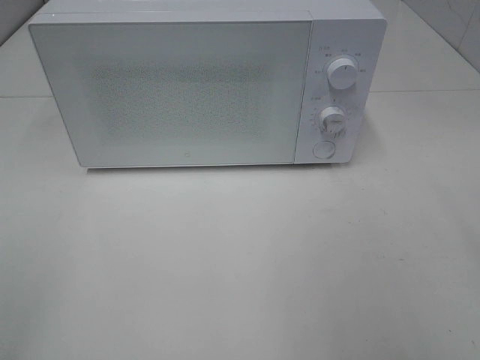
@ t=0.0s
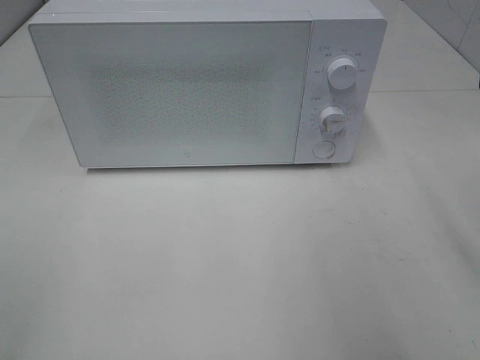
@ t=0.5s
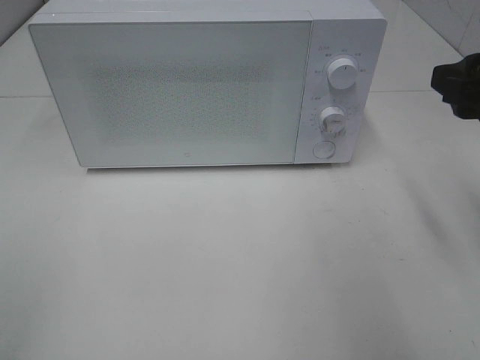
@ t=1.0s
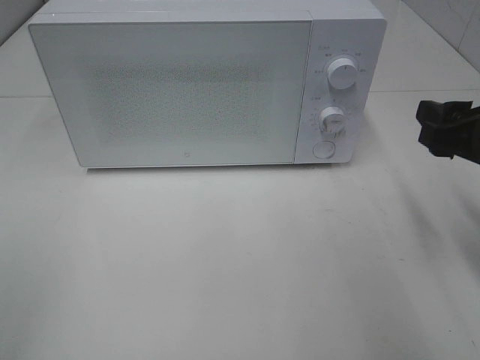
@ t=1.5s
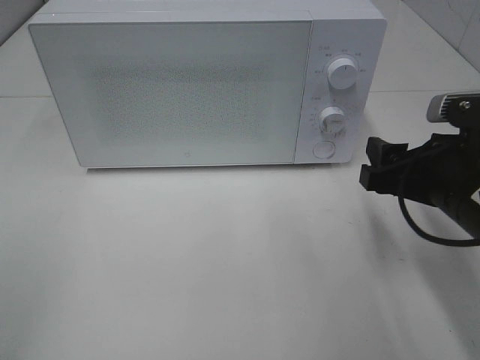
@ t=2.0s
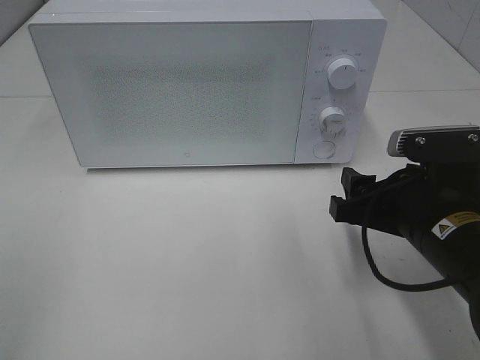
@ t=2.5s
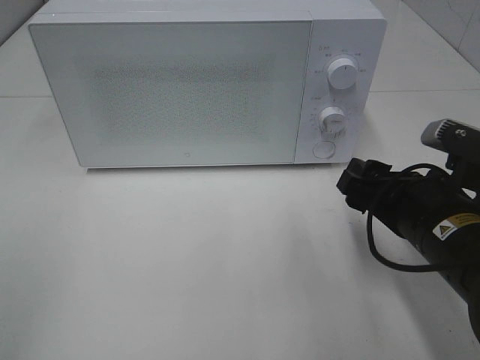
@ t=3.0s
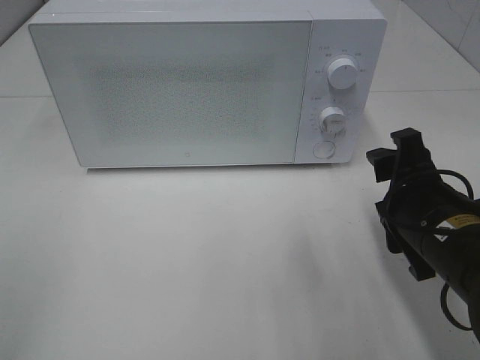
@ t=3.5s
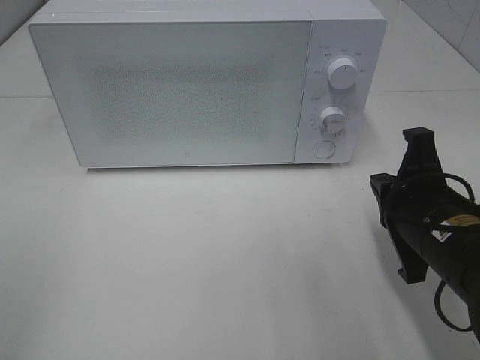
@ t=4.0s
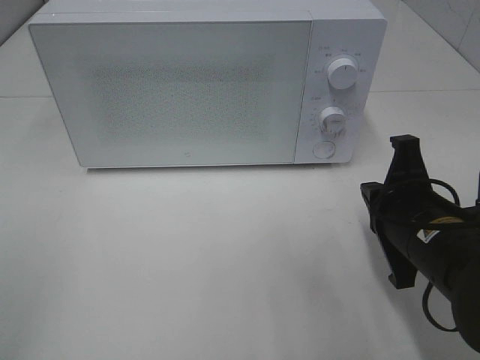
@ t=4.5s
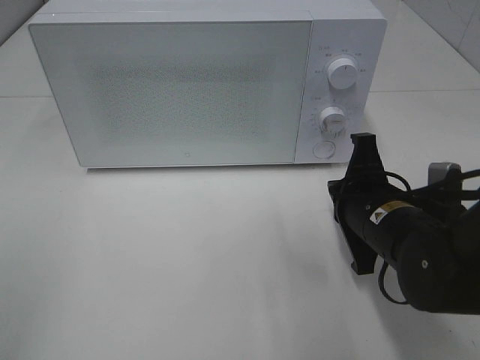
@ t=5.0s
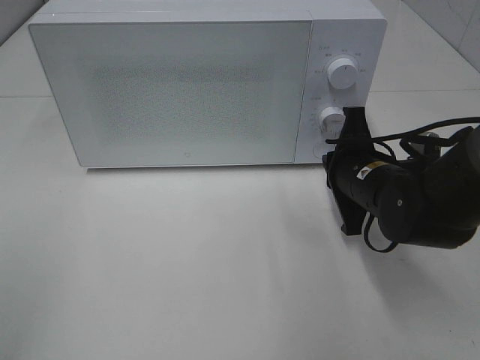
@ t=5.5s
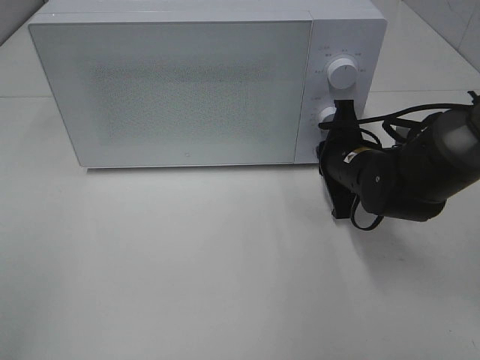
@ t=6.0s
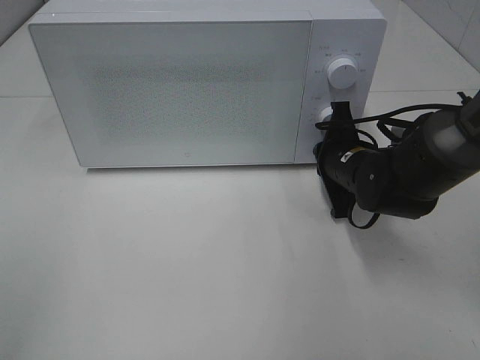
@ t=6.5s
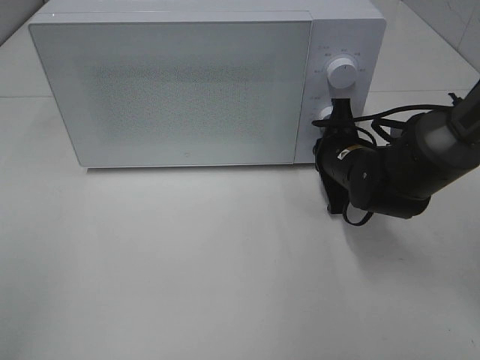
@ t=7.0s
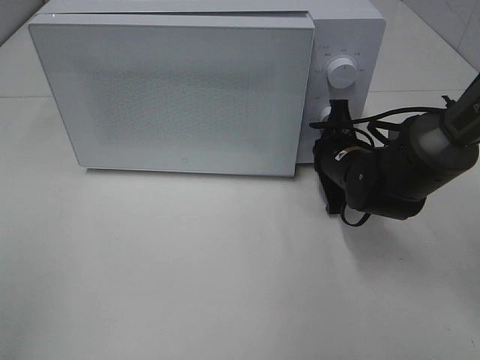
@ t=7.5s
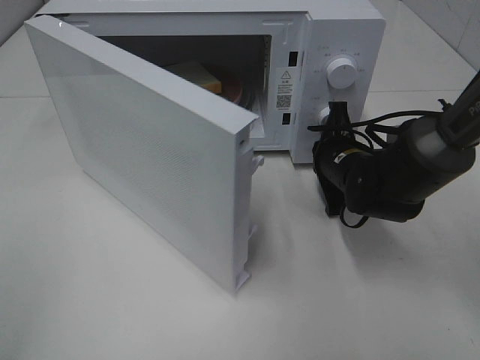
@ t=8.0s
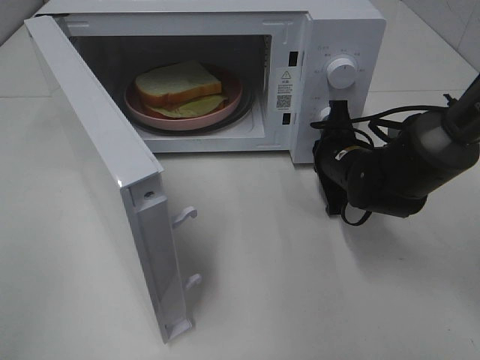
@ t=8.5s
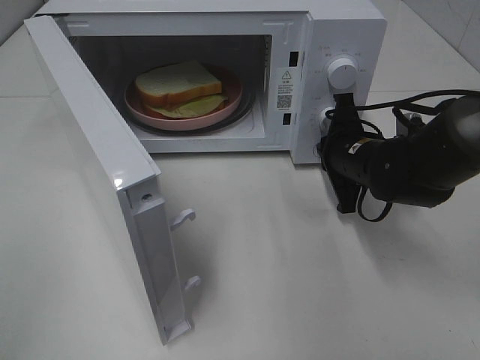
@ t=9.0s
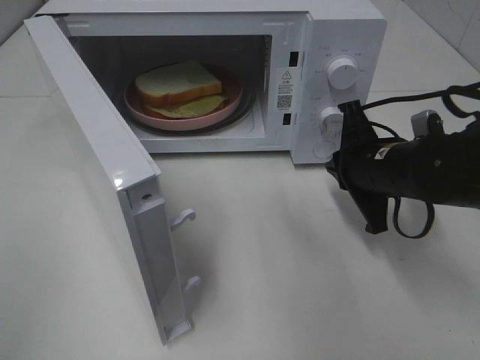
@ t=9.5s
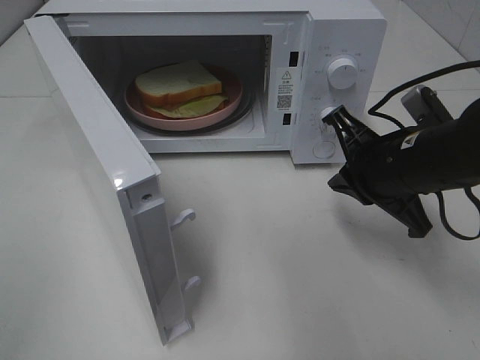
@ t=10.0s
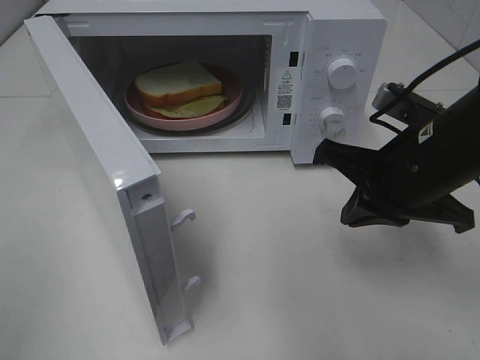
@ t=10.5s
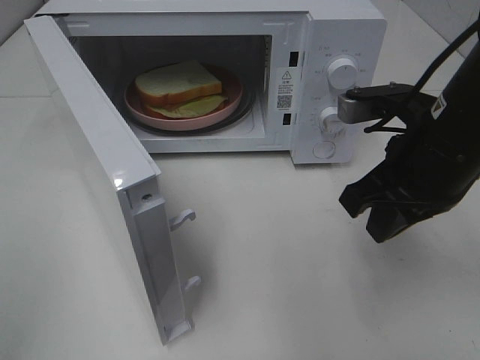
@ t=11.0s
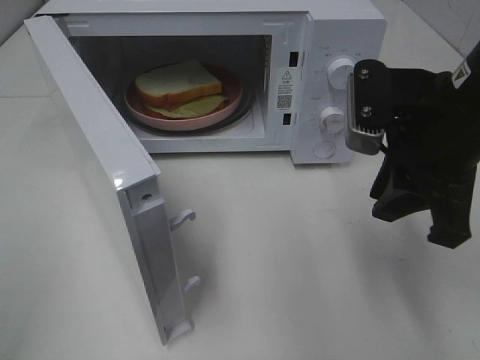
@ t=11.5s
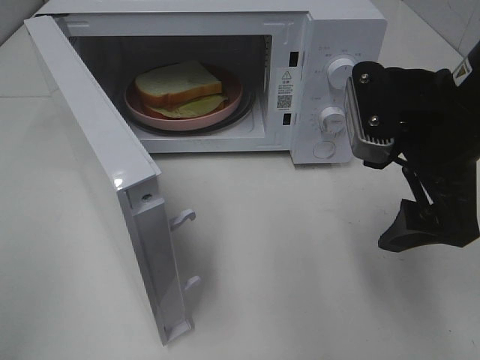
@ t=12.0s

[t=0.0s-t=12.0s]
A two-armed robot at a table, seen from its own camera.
Task of the whole recording: Heat Sandwich.
Step, t=0.0s to t=9.0s: Right hand: press the switch.
t=0.0s to t=2.0s: The right gripper goes about 20 cm downward, forward and to the left.
t=2.0s to t=4.0s: The right gripper closes.
t=4.0s to t=6.0s: The right gripper is displaced forward by roughly 15 cm.
t=8.0s to t=10.0s: The right gripper heads backward and upward, covering roughly 15 cm.
t=10.0s to t=12.0s: The right gripper travels upward by approximately 10 cm, and opens its fingers.

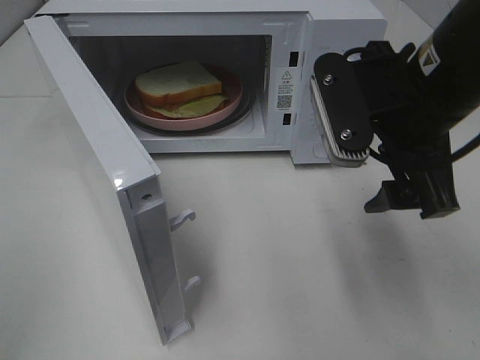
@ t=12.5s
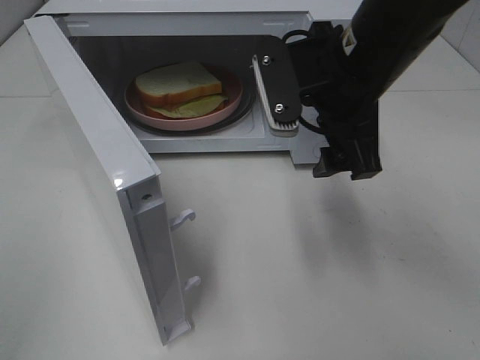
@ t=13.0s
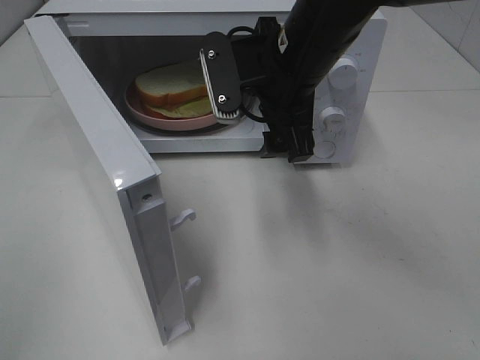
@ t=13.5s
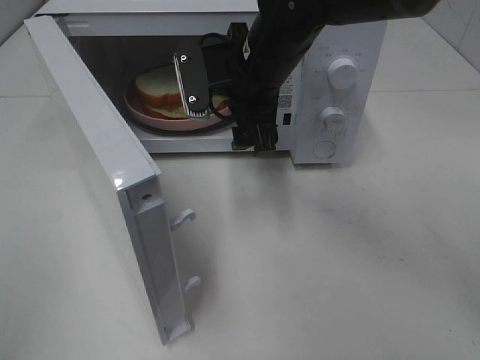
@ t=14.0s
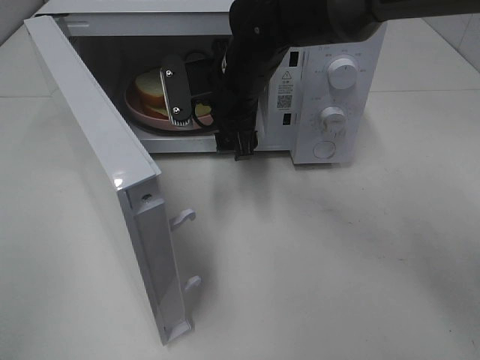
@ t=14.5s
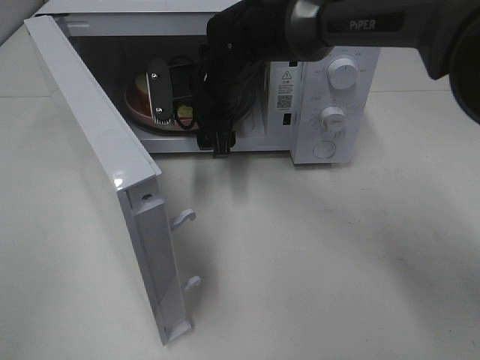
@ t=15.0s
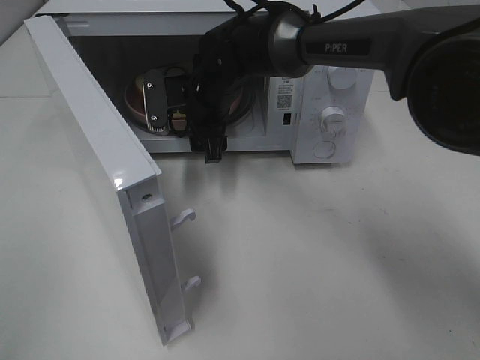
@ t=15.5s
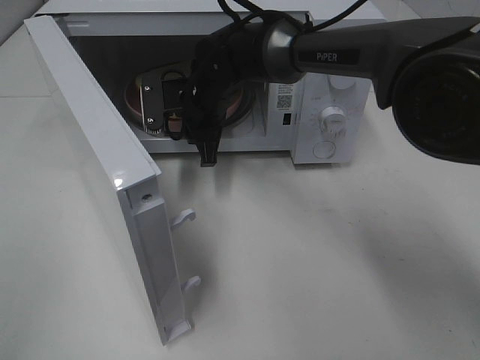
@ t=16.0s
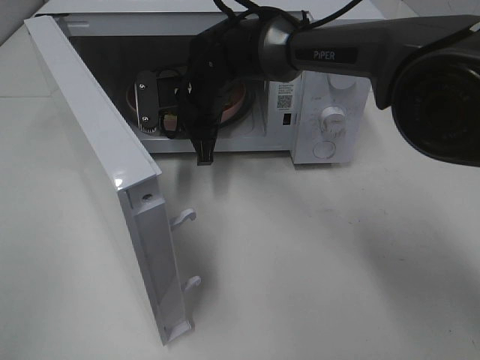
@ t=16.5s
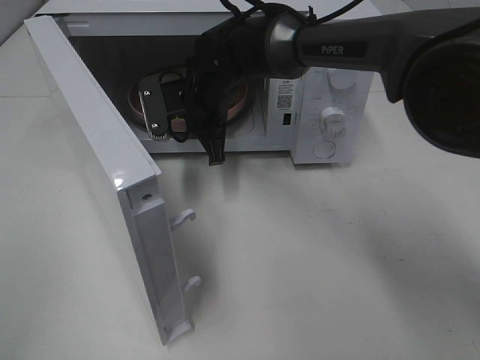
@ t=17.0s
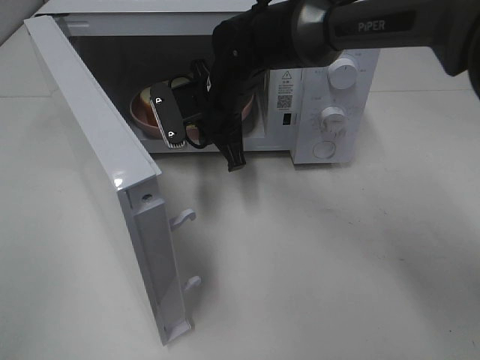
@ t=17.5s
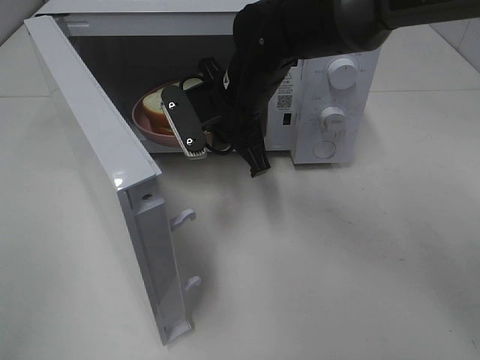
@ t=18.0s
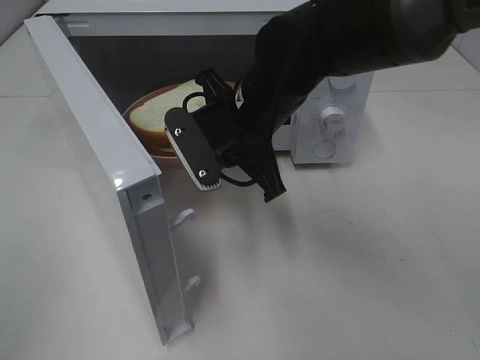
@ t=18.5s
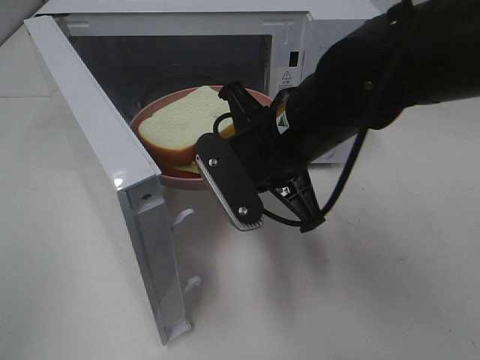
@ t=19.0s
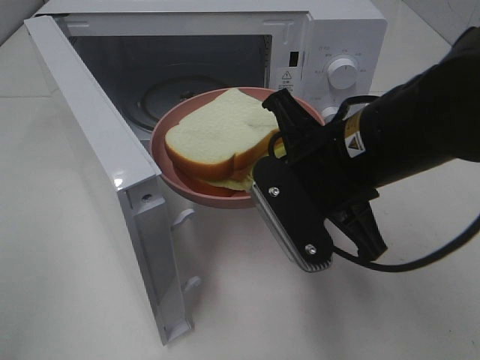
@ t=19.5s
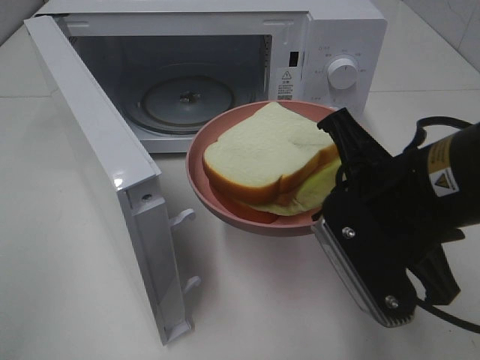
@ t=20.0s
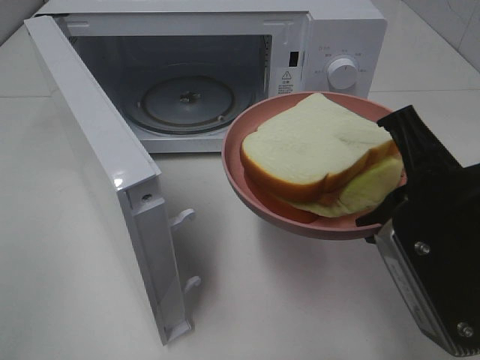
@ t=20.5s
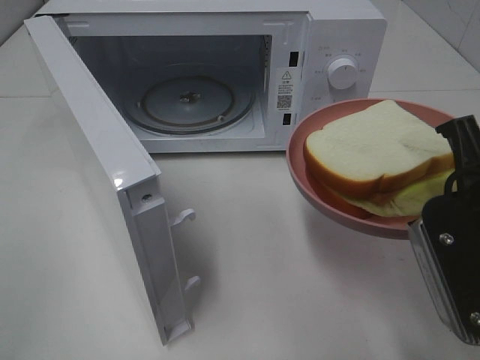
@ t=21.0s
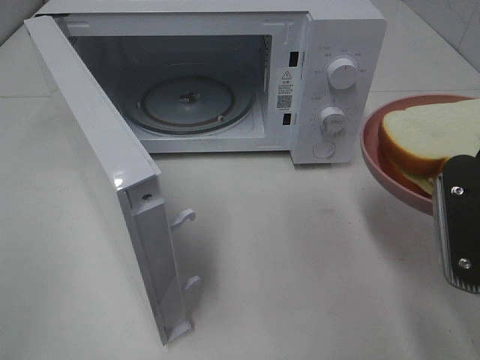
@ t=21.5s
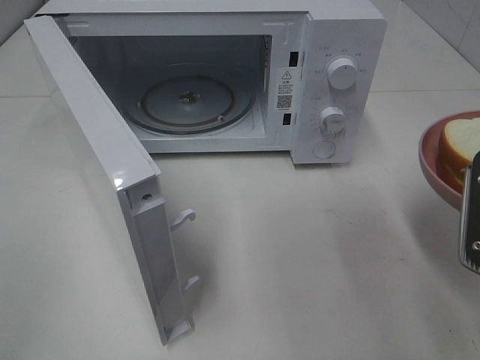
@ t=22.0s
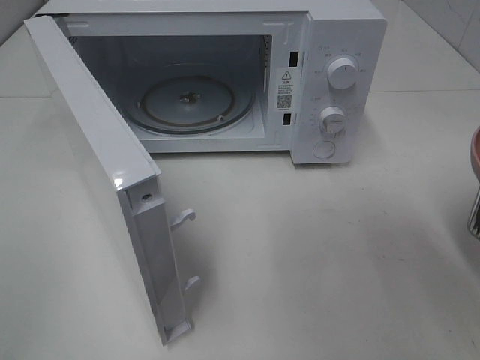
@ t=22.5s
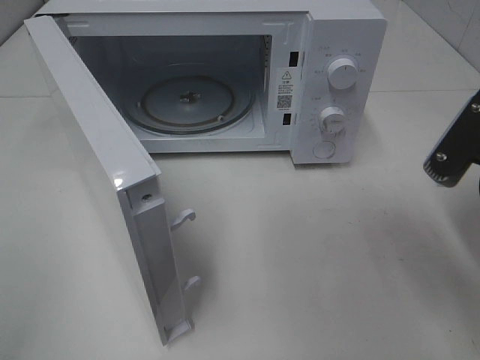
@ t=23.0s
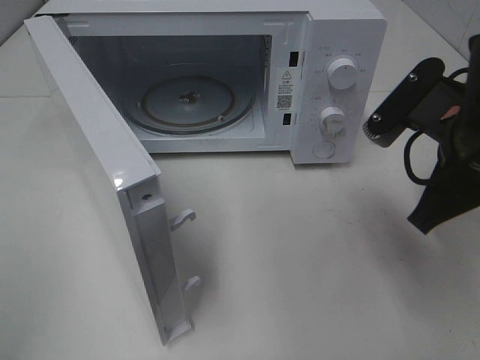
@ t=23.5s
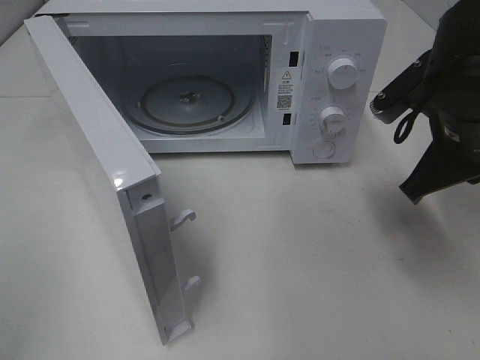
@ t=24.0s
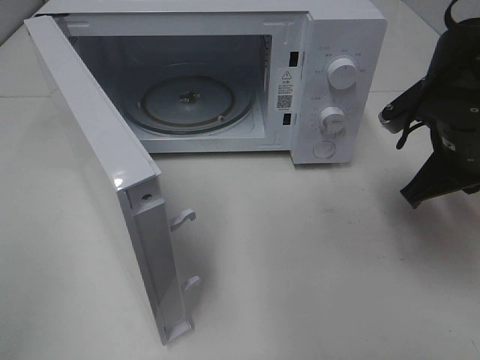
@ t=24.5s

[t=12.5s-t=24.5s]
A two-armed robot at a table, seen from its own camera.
Task of the whole recording: Heat Sandwich.
Step, t=12.5s to t=16.0s: Right hand: grab the plate with the sandwich.
t=12.5s to t=14.5s: The right gripper is displaced forward, to the left and downward by approximately 20 cm.
t=14.5s to t=16.5s: The right gripper moves about 10 cm, and closes.
t=16.5s to t=18.5s: The right gripper shifts approximately 15 cm backward, to the right and upward.
t=18.5s to t=20.5s: The right gripper heads backward and to the right, covering roughly 20 cm.
t=20.5s to t=22.5s: The right gripper is displaced to the right by roughly 5 cm.
t=22.5s to t=24.5s: The right gripper shifts about 15 cm forward.

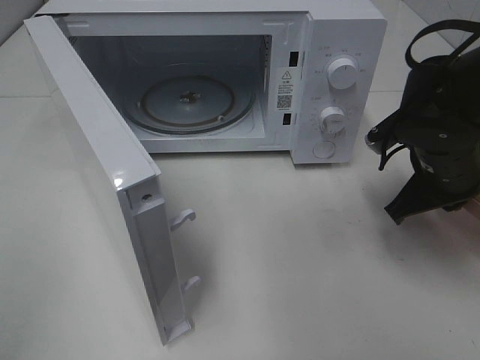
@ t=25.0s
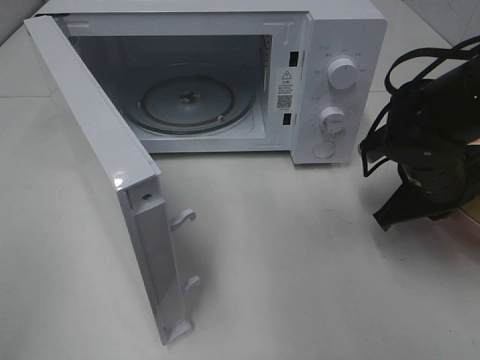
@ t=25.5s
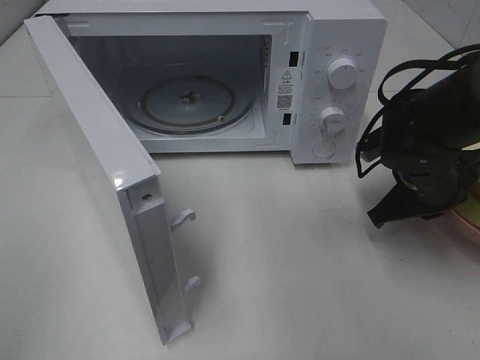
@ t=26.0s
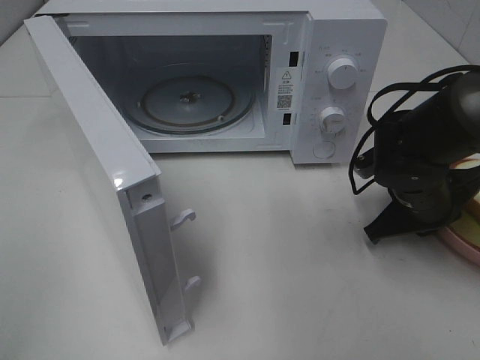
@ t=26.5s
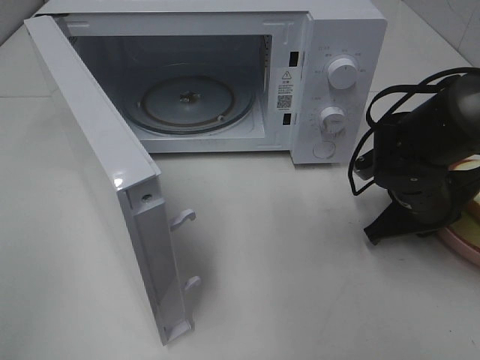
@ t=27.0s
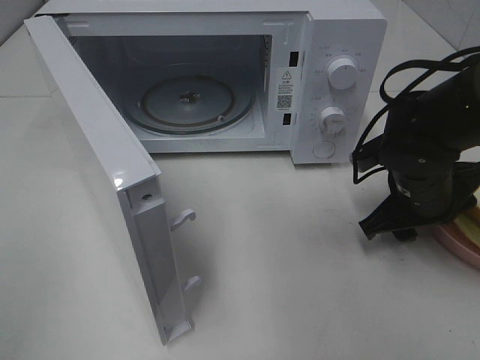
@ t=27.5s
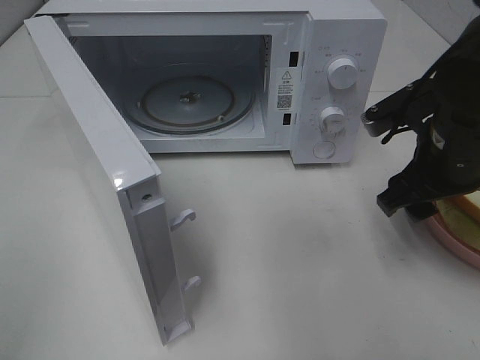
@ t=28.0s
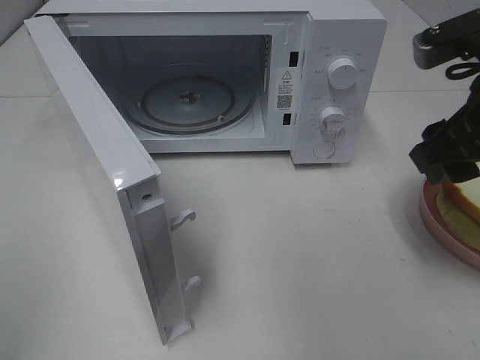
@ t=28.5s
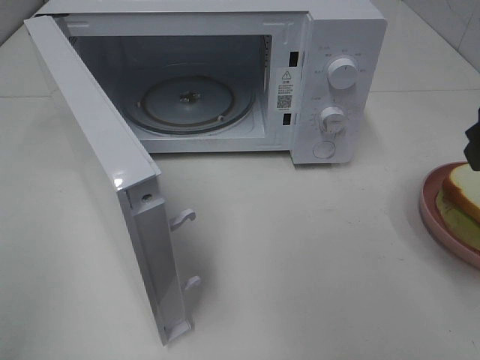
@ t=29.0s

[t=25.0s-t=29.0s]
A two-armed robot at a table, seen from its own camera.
Task of the whole recording: Heat Sandwich.
Step, t=25.0s to t=27.5s: Right hand: place the plate on the table.
t=25.0s to t=27.0s: The right gripper shifts some 5 cm downward.
t=27.0s to t=29.0s: The right gripper moves upward and backward, some 25 cm, and opens its fingers.
